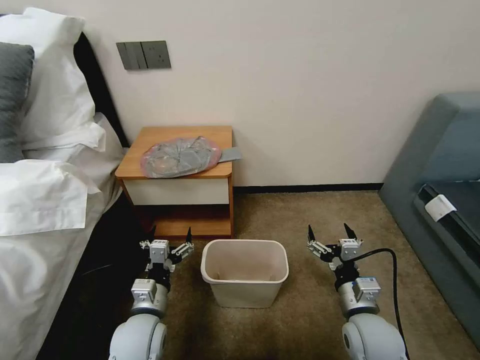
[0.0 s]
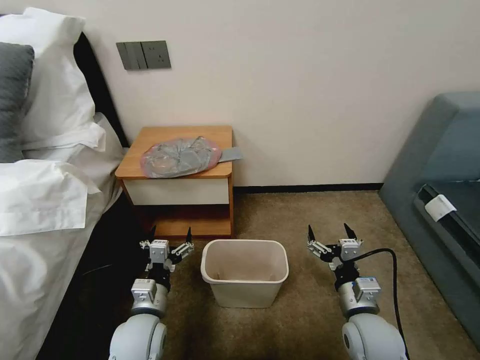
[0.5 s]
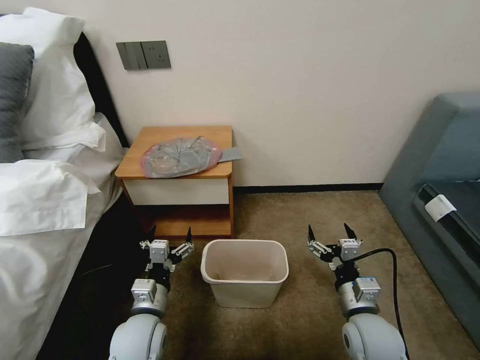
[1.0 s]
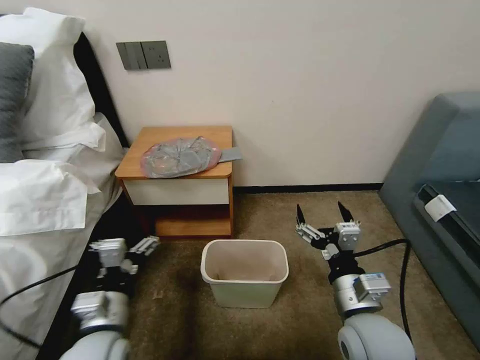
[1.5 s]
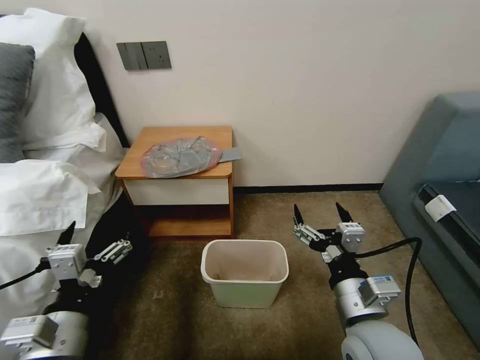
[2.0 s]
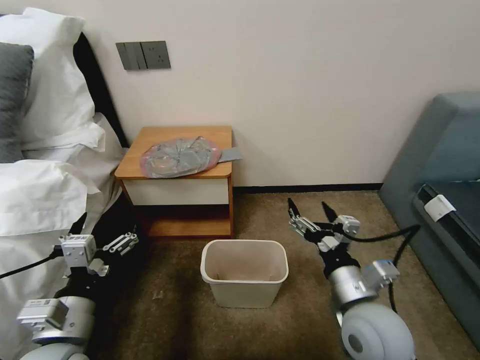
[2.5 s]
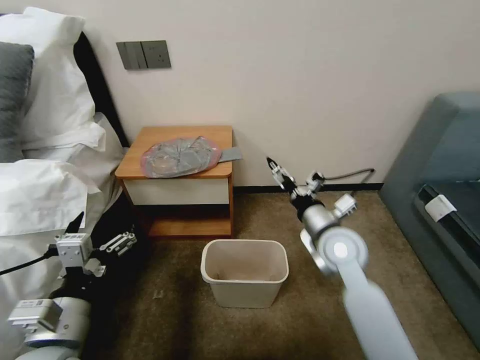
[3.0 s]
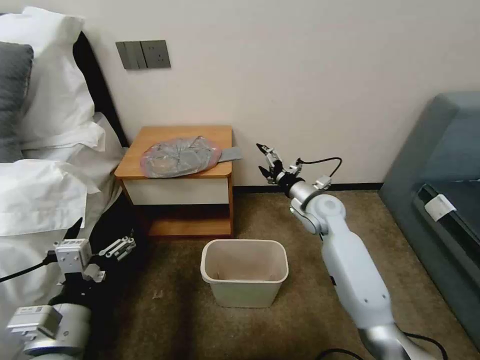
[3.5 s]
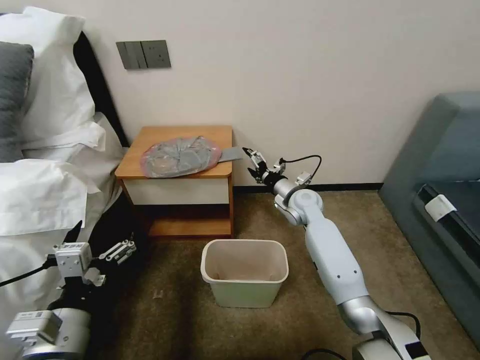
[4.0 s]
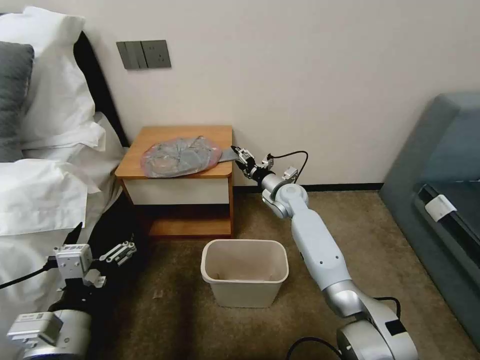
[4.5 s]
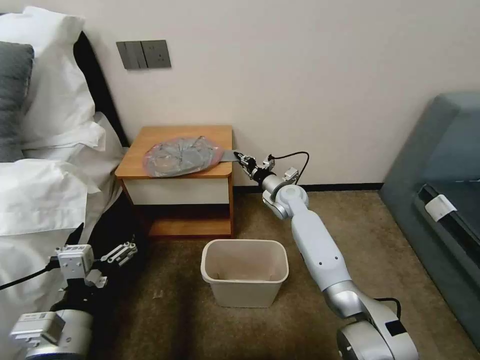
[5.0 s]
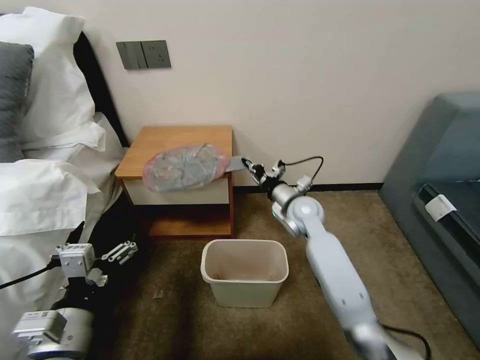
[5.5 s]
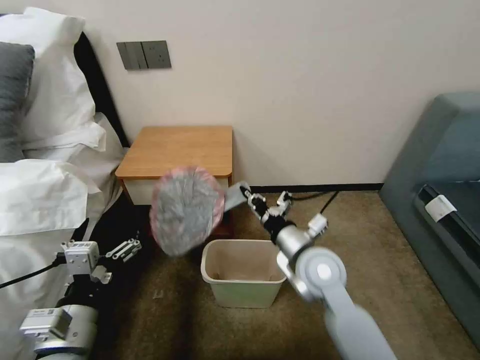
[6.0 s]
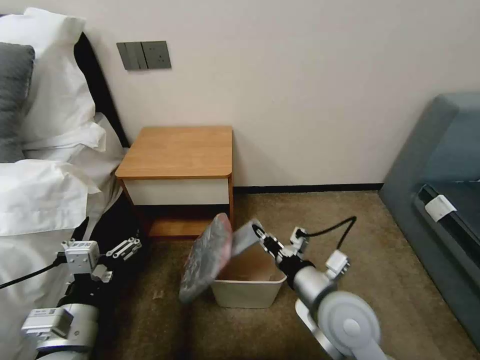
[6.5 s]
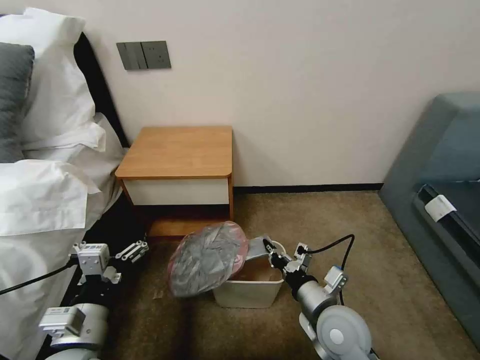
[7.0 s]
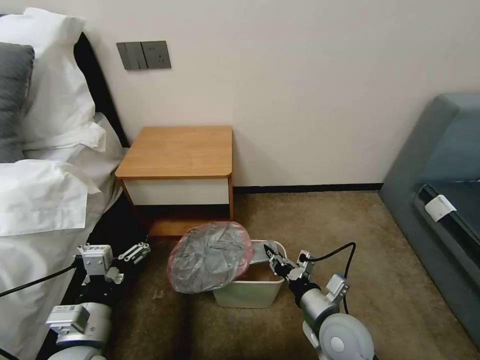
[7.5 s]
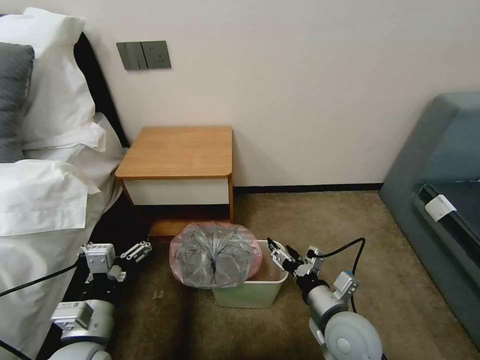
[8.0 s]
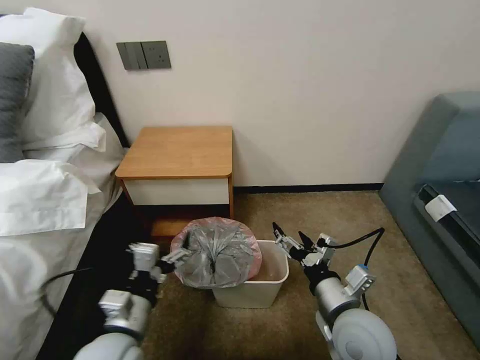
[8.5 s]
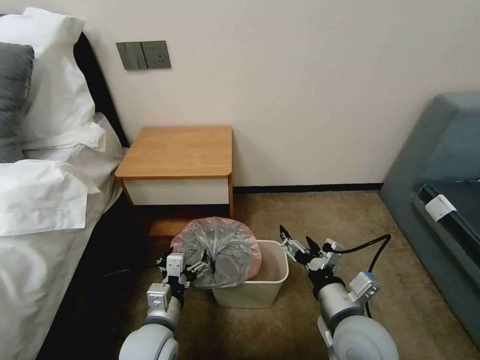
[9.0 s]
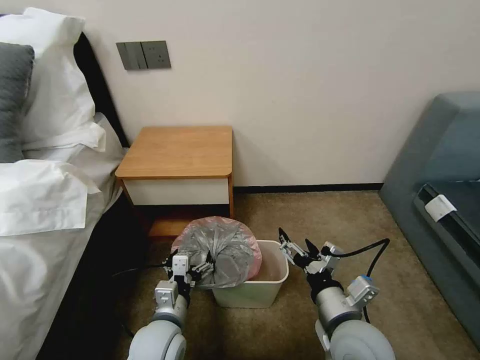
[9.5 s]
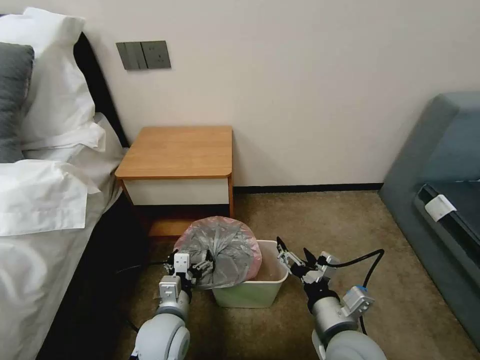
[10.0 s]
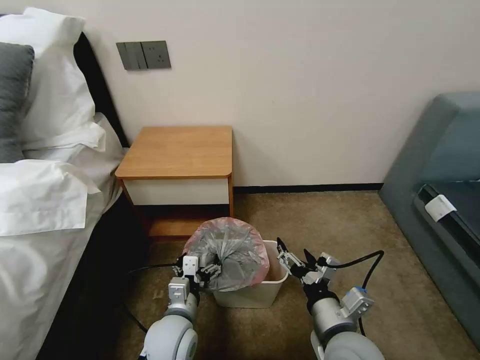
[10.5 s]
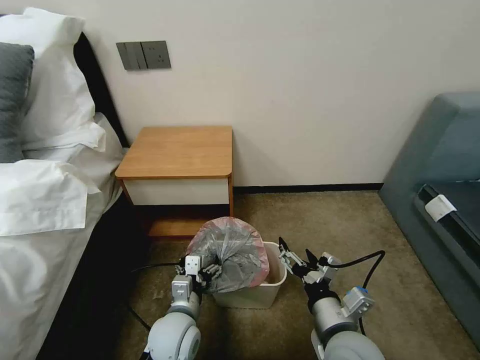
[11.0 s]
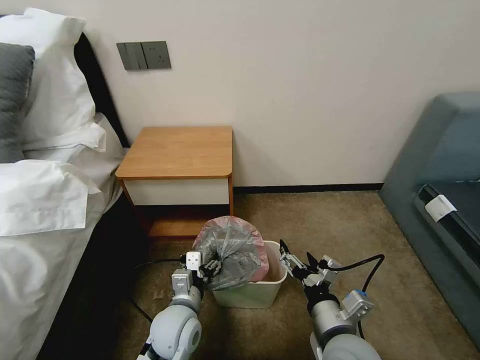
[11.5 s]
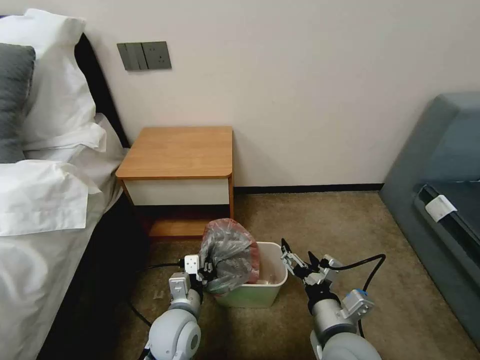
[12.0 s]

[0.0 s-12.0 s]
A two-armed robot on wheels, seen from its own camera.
Task of the whole recording: Pick up the garbage bag from the table and place it over the trash can.
2.0 to 4.0 s: The right gripper shifts roughly 35 cm forward.
4.0 to 6.0 s: The right gripper shifts some 20 cm backward, and closes.
6.0 to 8.0 s: The right gripper moves backward, downward and to the right, some 15 cm, and opens its fingers.
8.0 to 10.0 s: The left gripper heads to the right, downward and forward, covering some 15 cm.
10.0 to 12.0 s: The left gripper closes up.

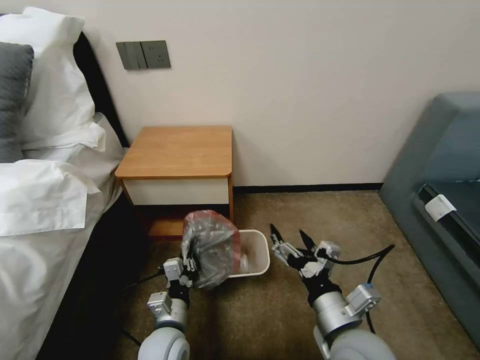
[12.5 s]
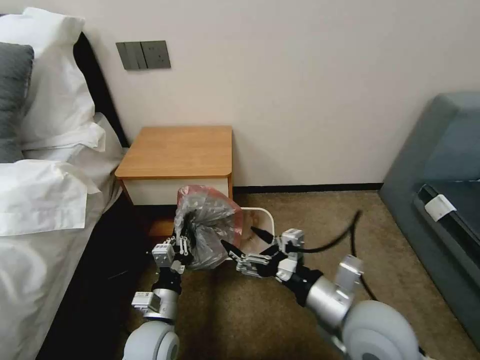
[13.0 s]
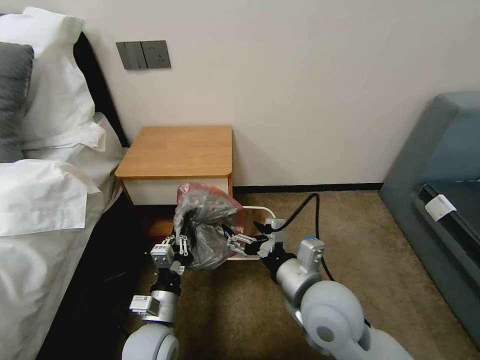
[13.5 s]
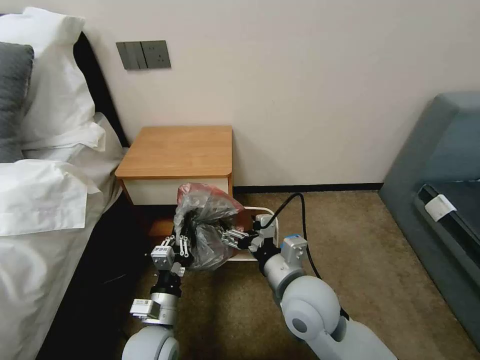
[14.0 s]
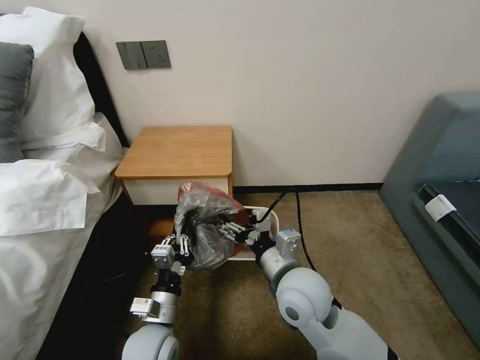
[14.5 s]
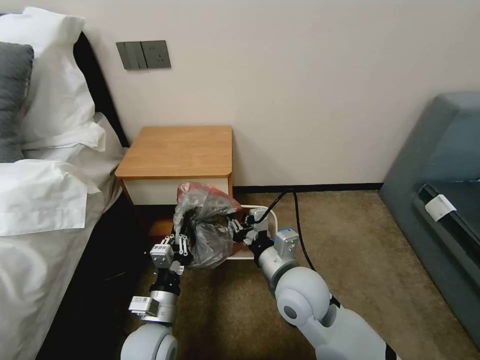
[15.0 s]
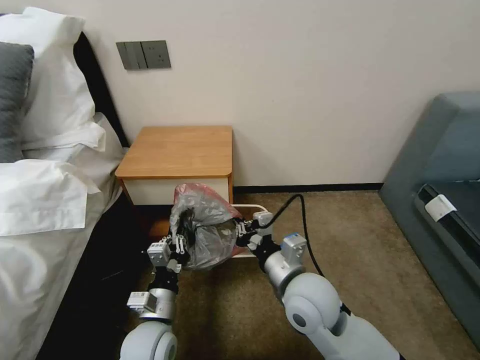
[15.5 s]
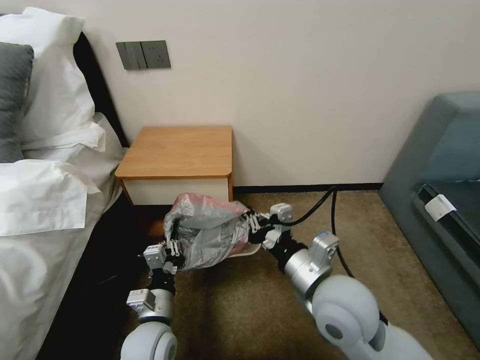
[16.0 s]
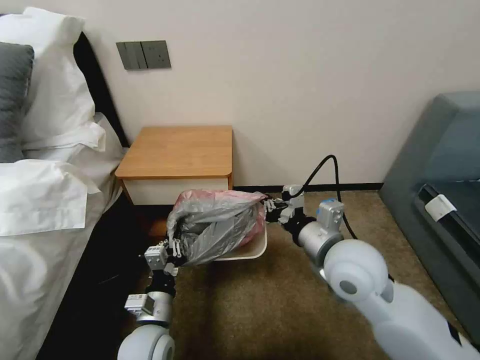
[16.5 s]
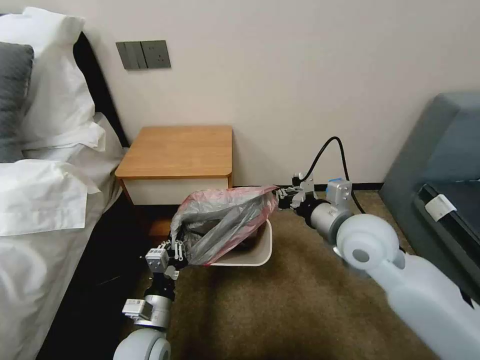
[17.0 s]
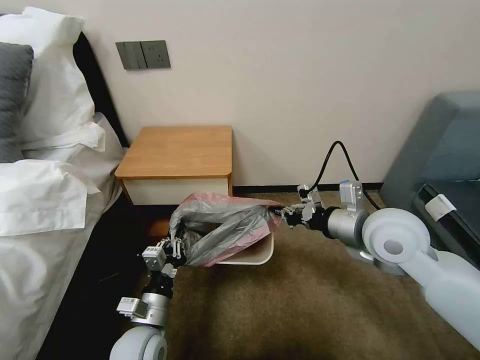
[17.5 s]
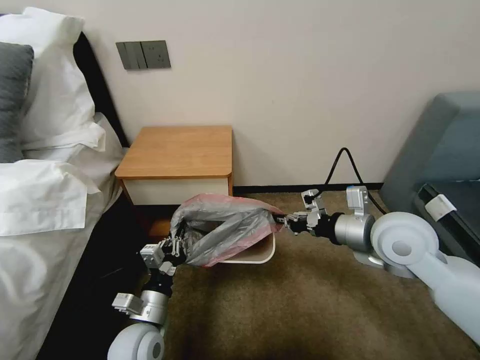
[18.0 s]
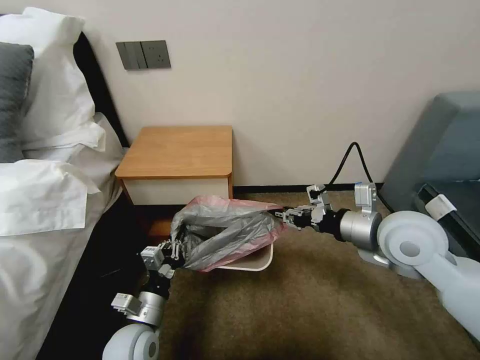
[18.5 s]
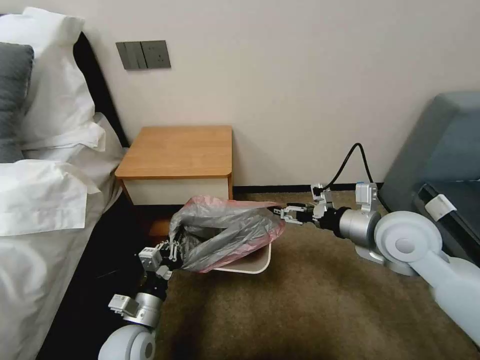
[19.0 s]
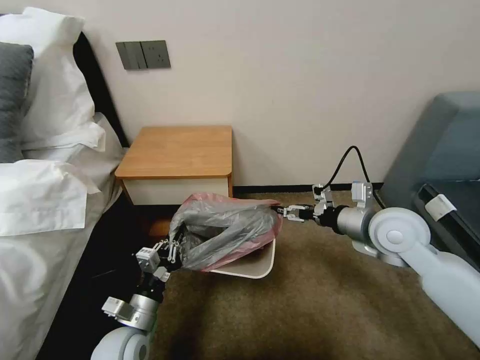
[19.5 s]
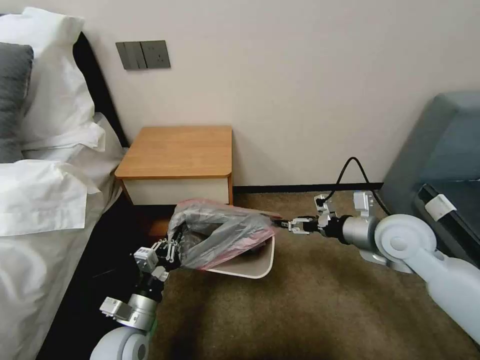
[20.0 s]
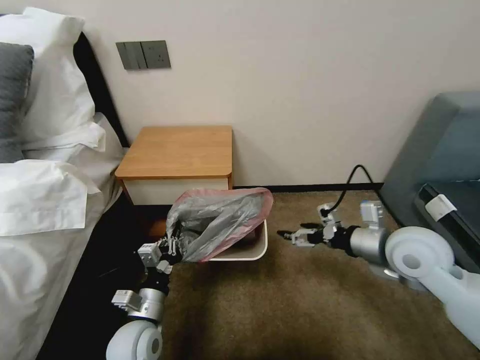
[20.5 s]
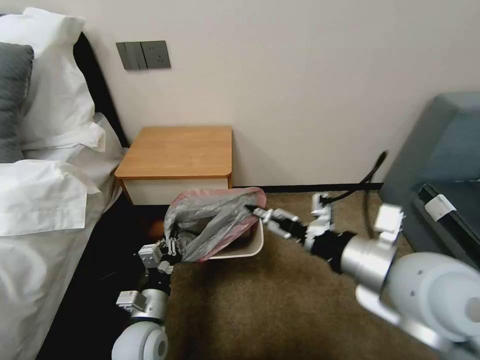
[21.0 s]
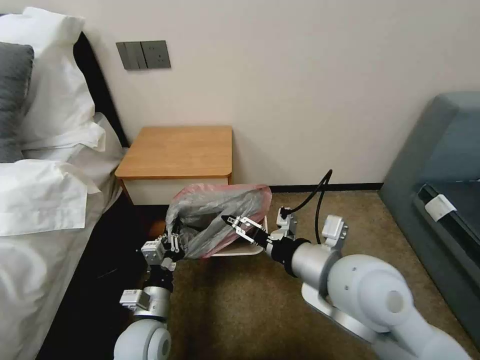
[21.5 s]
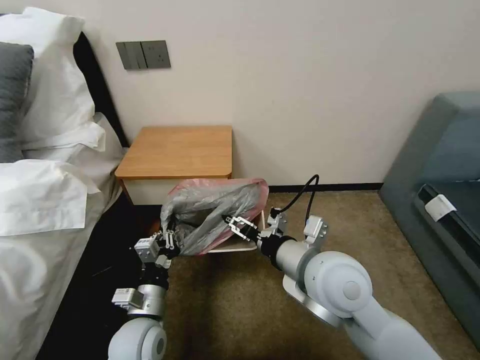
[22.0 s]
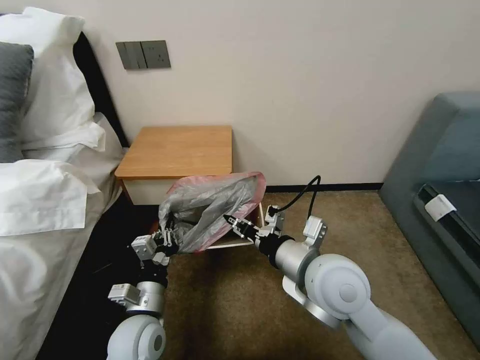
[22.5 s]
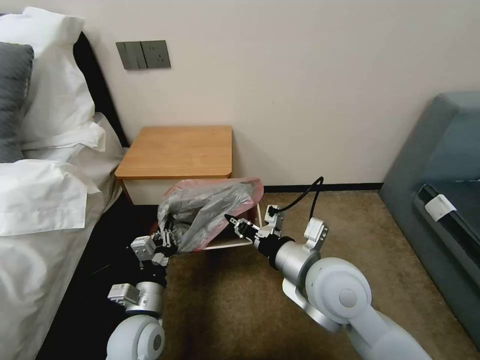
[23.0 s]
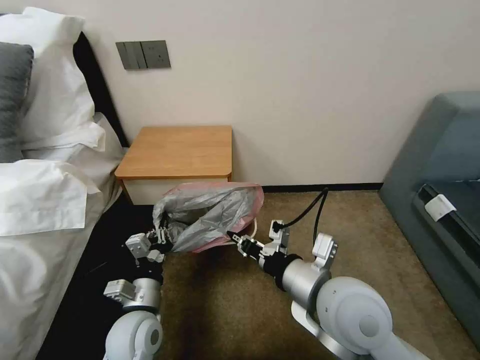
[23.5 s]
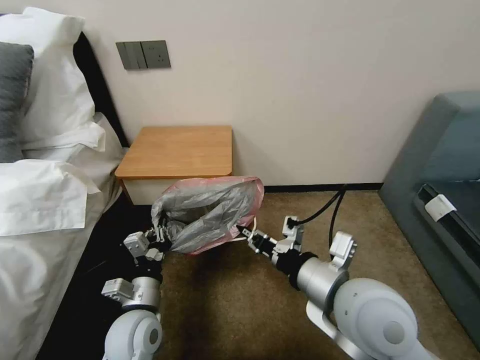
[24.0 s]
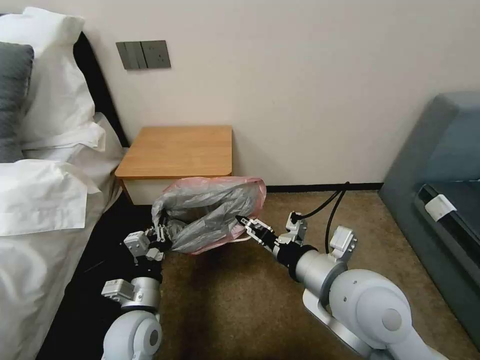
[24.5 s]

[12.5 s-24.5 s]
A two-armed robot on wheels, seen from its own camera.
Task of the whole recording: Pick up the garbage bag from the table and place it over the trash can.
12.5 to 14.5 s: The right gripper goes some 10 cm forward and to the left.
14.5 to 16.5 s: The right gripper goes roughly 10 cm to the right and upward, and closes up.
16.5 to 18.5 s: The right gripper shifts some 10 cm to the right.
18.5 to 20.5 s: The right gripper changes place by approximately 5 cm, and opens its fingers.
20.5 to 22.5 s: The right gripper travels to the left by some 15 cm, and closes its fingers.
22.5 to 24.5 s: The right gripper moves about 5 cm.

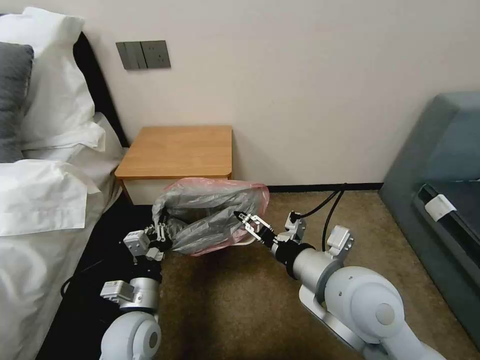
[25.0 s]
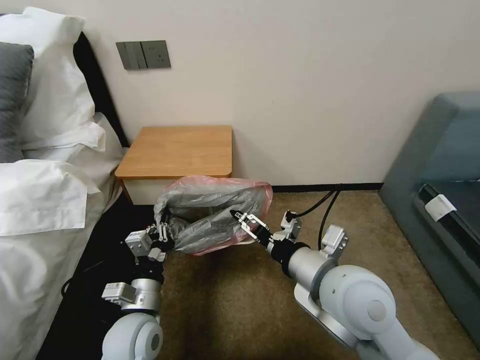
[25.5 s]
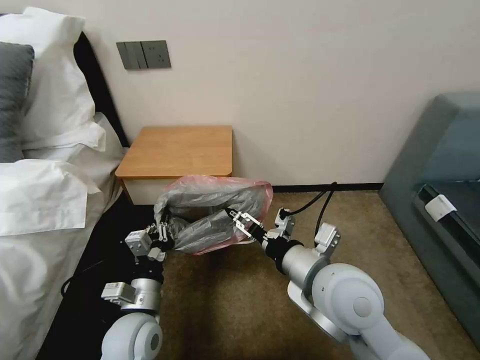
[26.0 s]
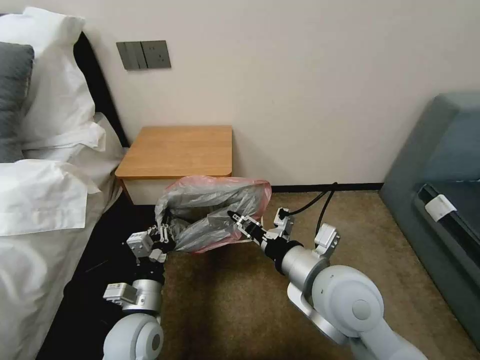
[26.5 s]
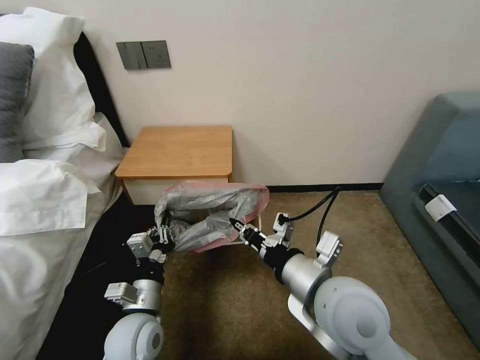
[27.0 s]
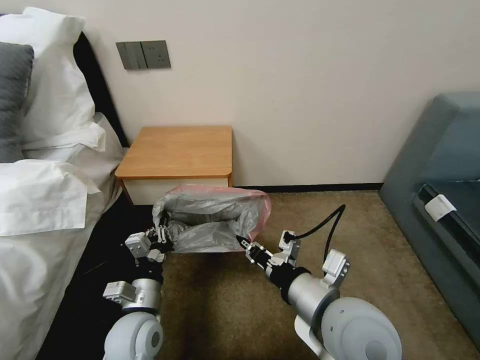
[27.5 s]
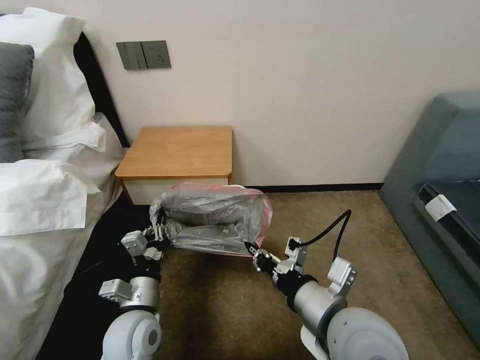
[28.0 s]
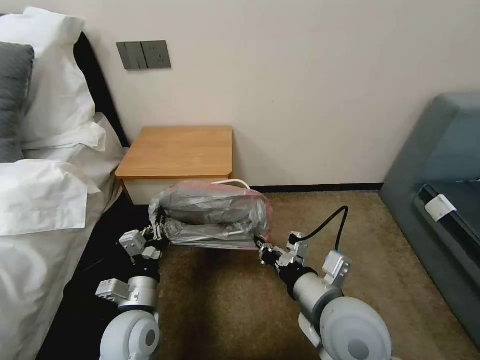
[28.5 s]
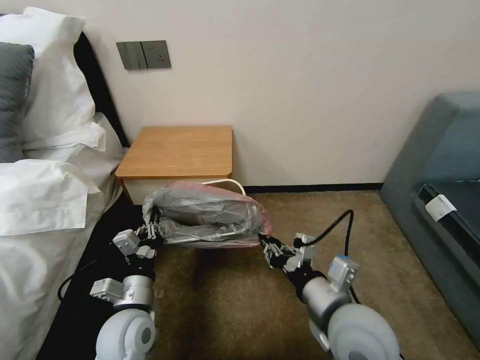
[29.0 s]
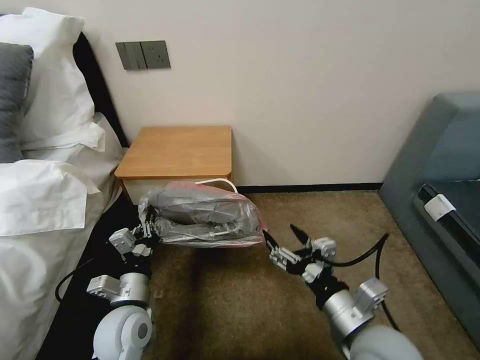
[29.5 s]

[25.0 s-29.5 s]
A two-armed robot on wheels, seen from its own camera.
Task of the whole recording: Pick up the garbage bag from the table and place it over the trash can.
25.0 to 27.0 s: The right gripper closes.
27.0 to 29.5 s: The right gripper is displaced downward and to the right by some 10 cm, and opens its fingers.
